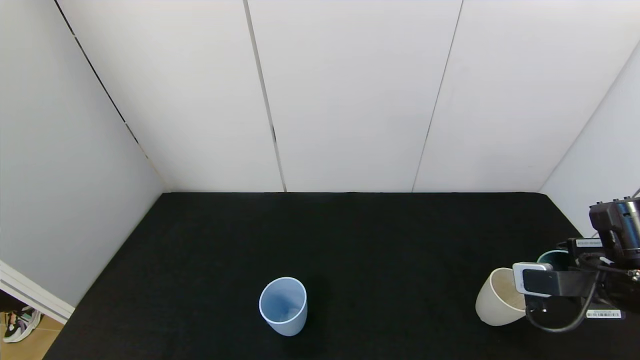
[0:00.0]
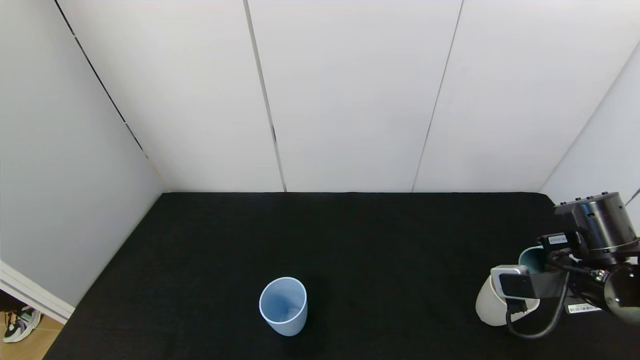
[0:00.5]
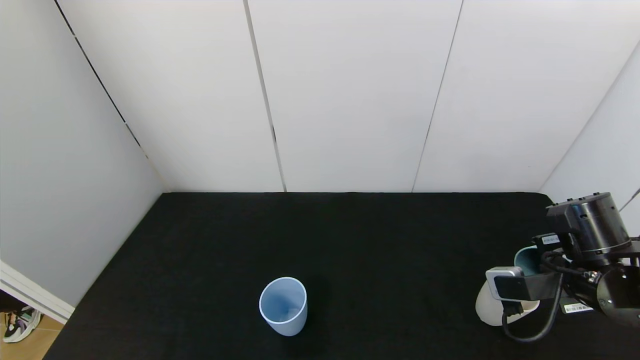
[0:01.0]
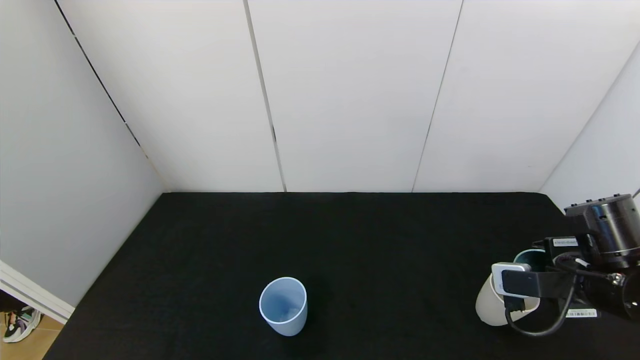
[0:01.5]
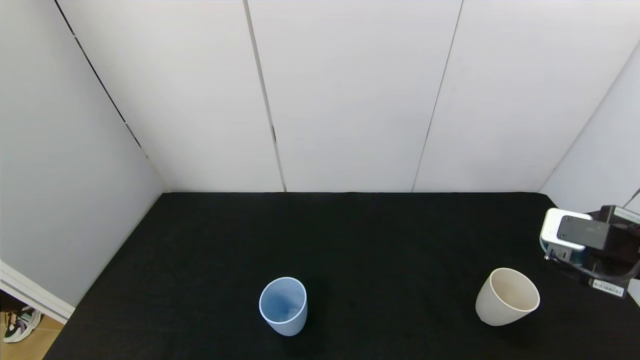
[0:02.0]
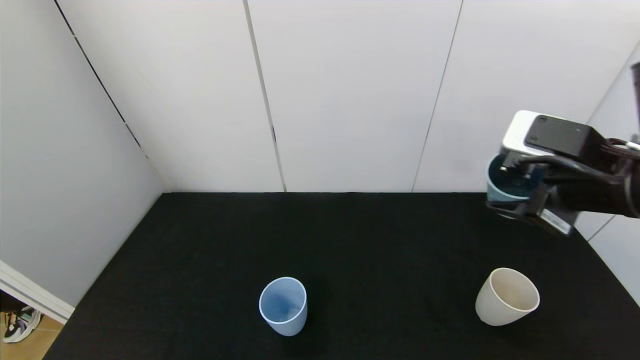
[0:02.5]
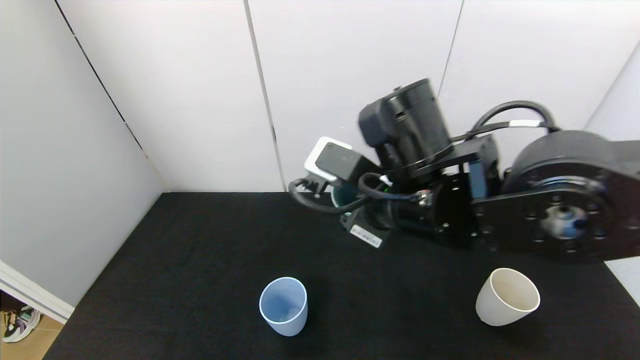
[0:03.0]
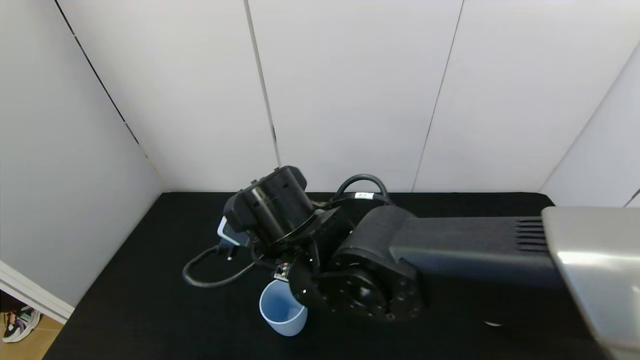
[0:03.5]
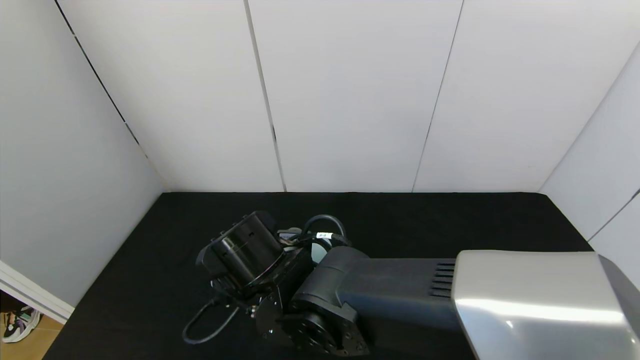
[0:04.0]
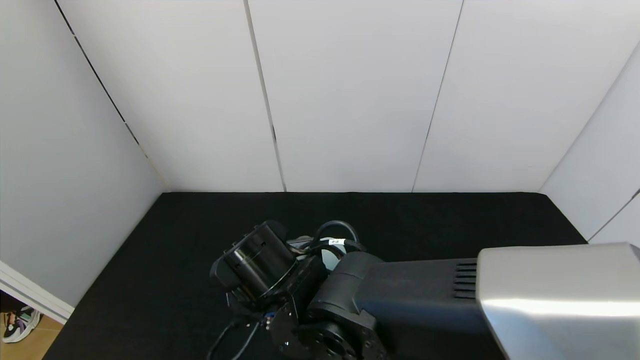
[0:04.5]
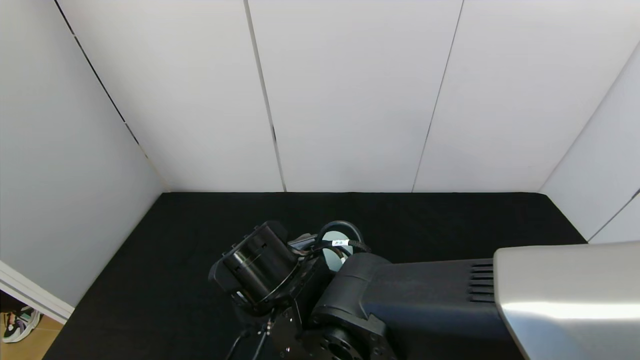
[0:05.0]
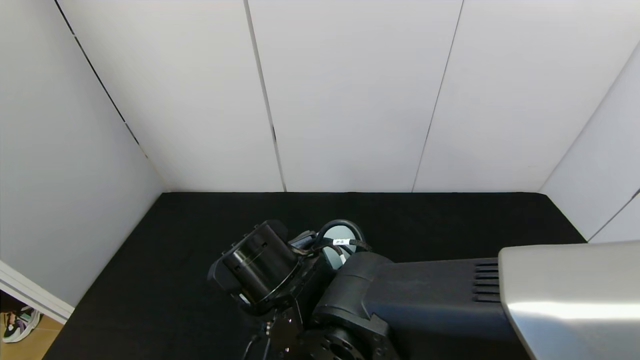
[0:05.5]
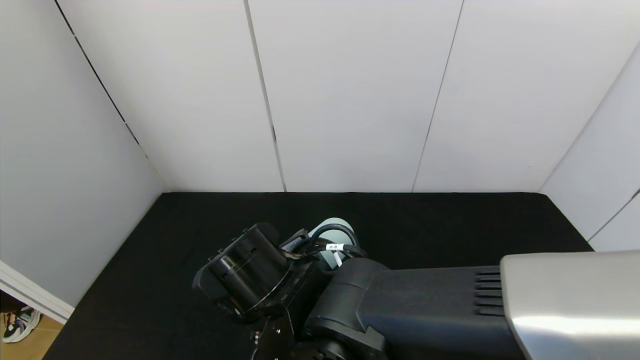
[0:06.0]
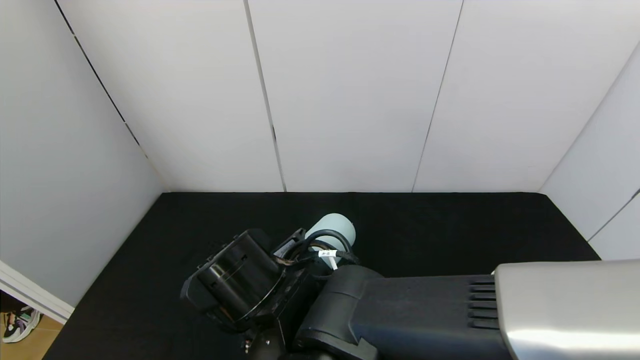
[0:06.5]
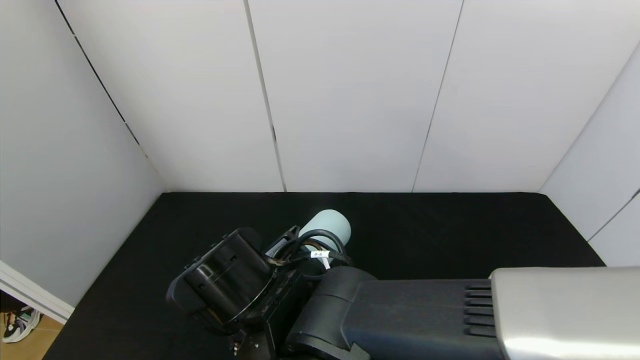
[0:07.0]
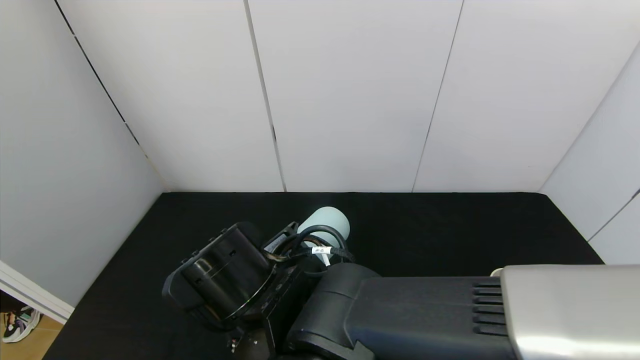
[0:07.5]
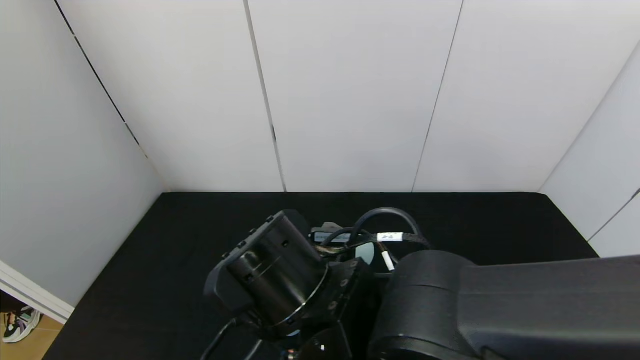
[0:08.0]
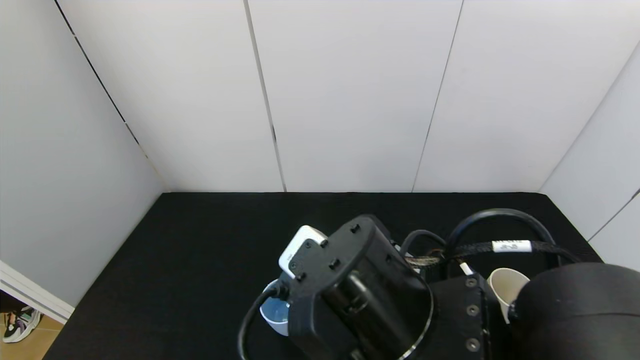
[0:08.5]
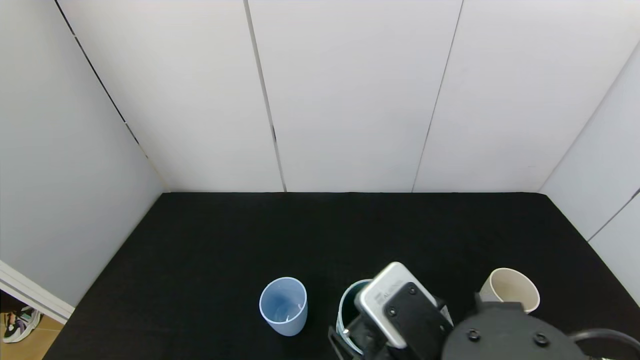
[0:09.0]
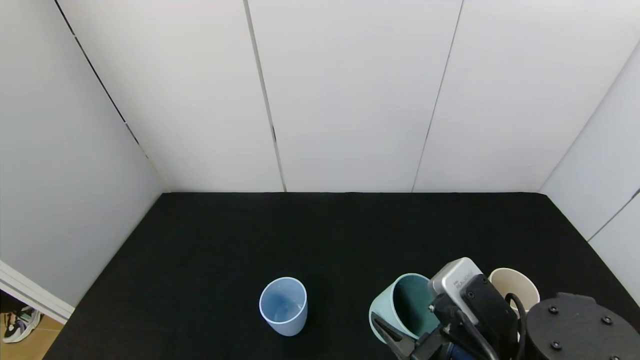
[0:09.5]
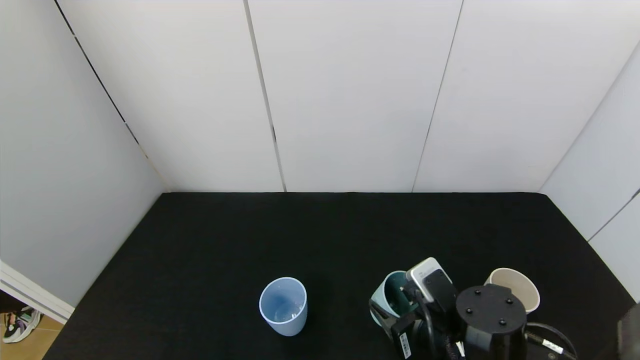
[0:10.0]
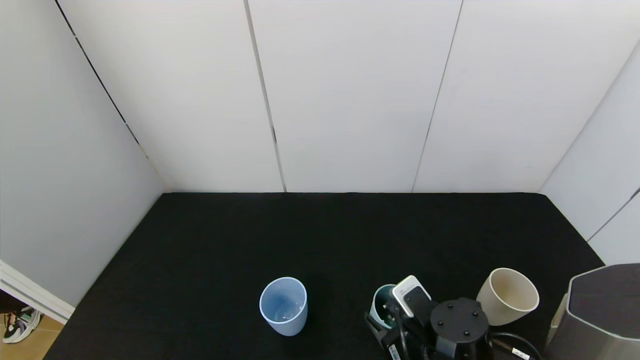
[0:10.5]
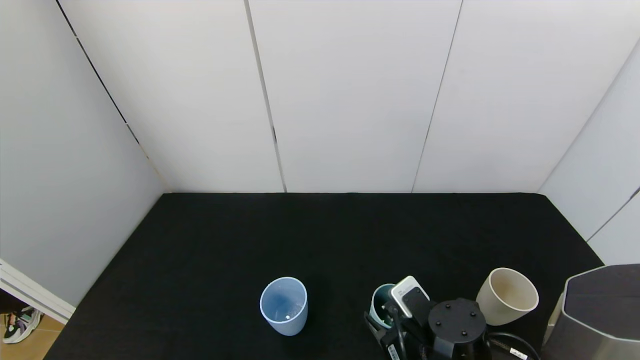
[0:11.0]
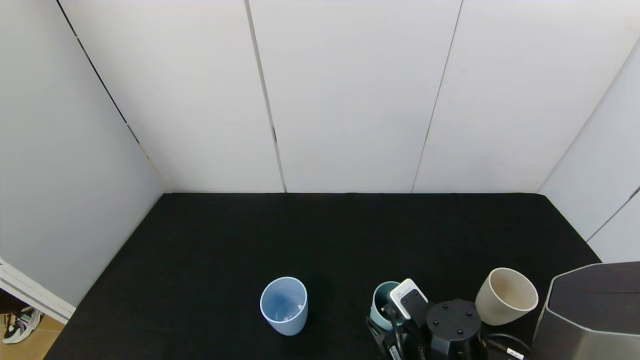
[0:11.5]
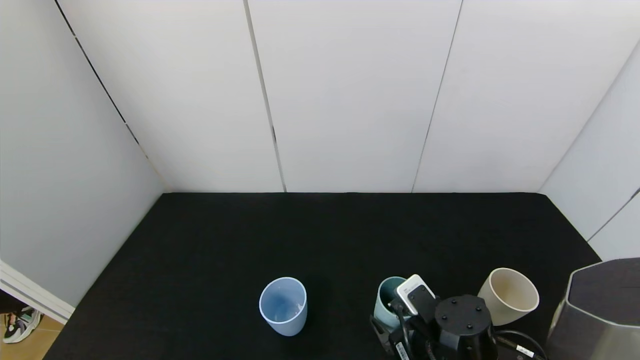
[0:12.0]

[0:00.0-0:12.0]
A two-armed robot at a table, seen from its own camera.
Task of the whole recording: use the gripper to pour the water into the other two cups on black table.
Step, 0:02.0 to 0:08.5: Pour water from green cup to blue cup with the right gripper.
0:00.0 to 0:02.0: The right gripper is displaced upward by some 5 cm.
0:02.0 to 0:04.0: The right gripper goes about 40 cm to the left.
0:06.0 to 0:08.0: The right gripper changes place by about 5 cm.
0:08.0 to 0:10.0: The right gripper is displaced to the right and downward by approximately 20 cm.
0:10.0 to 0:12.0: The right gripper opens up.

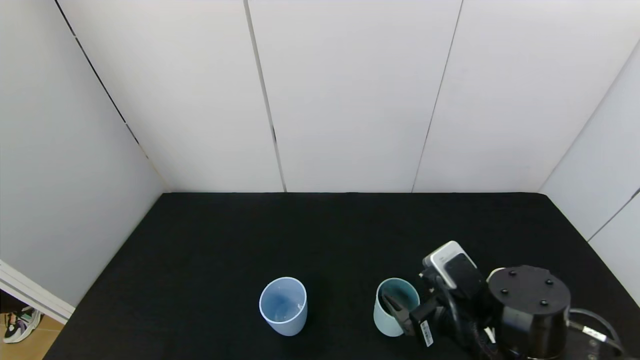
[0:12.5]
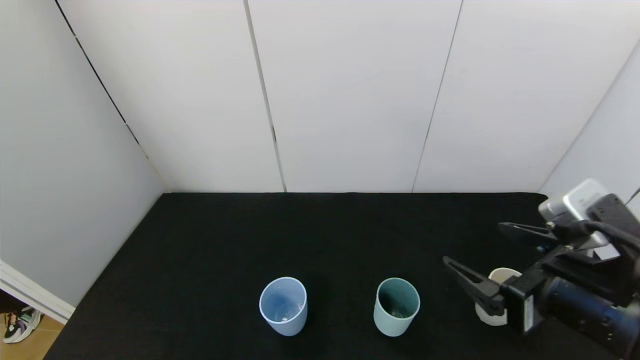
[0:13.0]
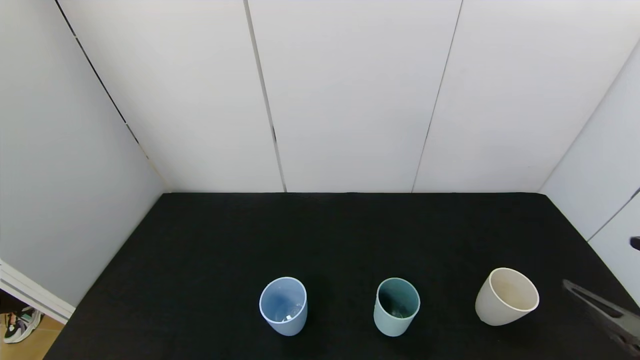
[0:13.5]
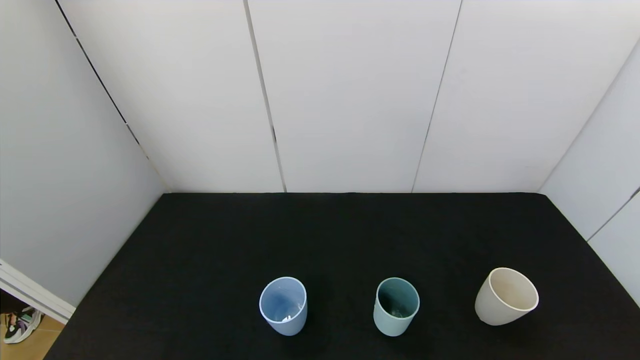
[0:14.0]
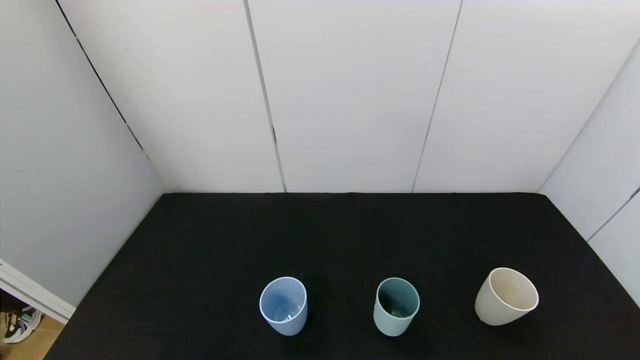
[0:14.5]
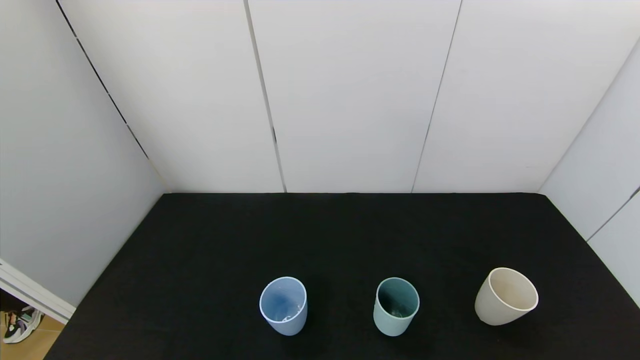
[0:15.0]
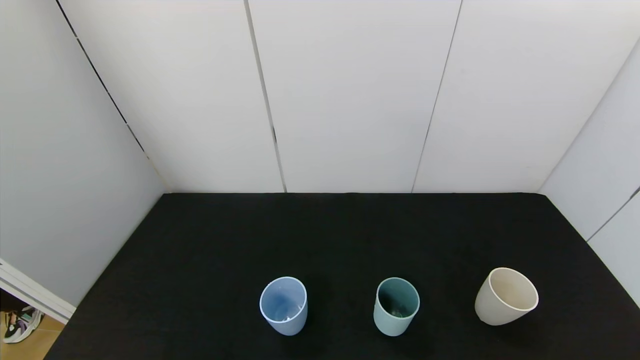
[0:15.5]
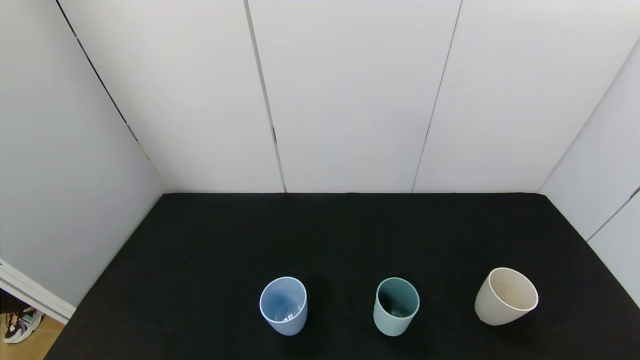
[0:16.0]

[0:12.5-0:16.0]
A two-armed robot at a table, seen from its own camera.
Task of the whole recording: use the gripper to pour the water into the other two cups on black table.
0:12.5 to 0:14.5: The right gripper shifts about 30 cm backward and to the right.
